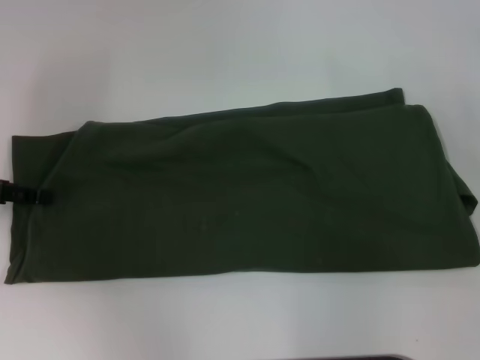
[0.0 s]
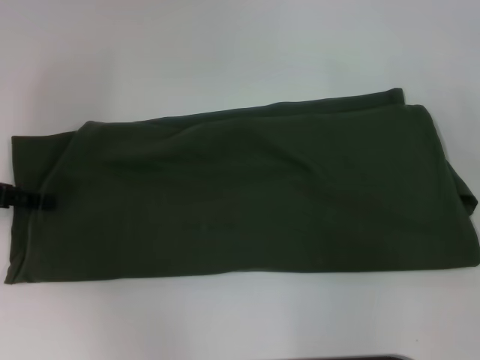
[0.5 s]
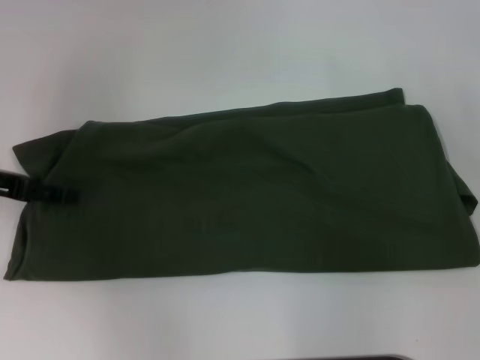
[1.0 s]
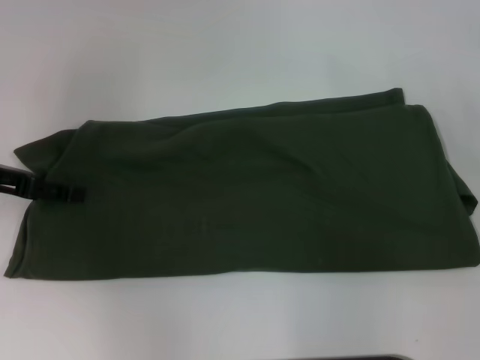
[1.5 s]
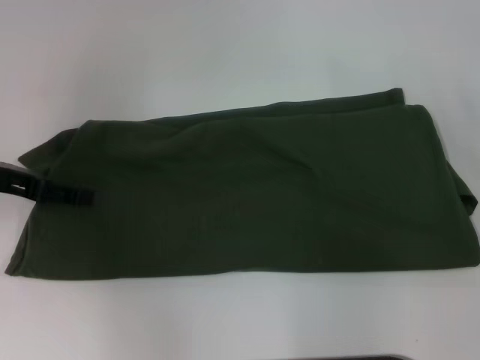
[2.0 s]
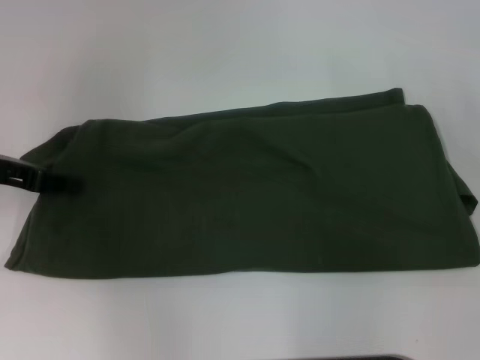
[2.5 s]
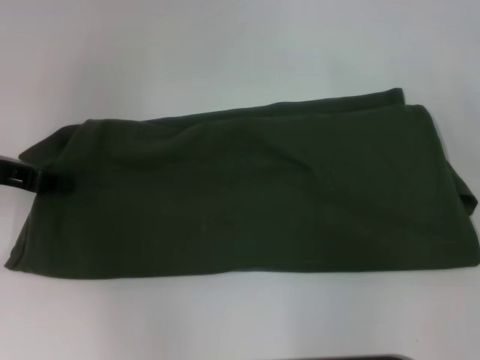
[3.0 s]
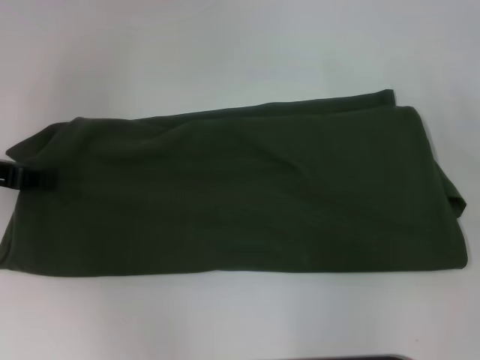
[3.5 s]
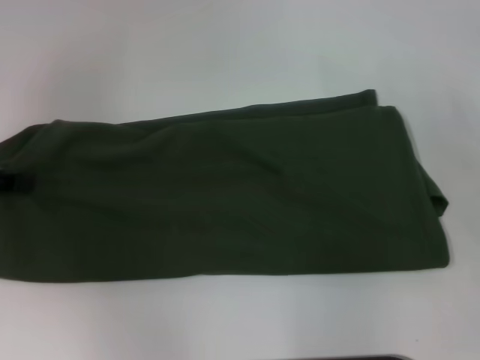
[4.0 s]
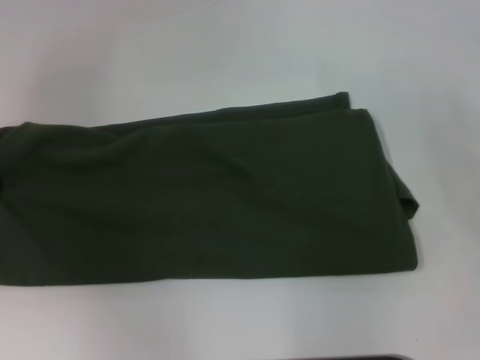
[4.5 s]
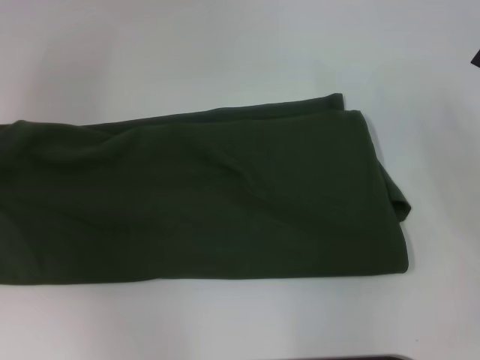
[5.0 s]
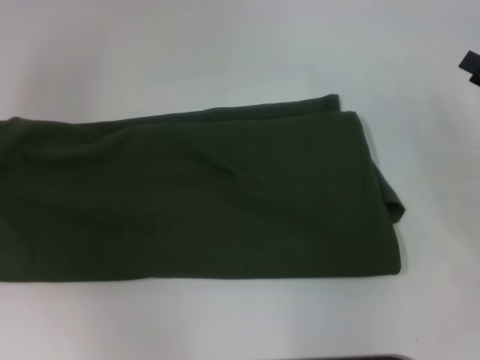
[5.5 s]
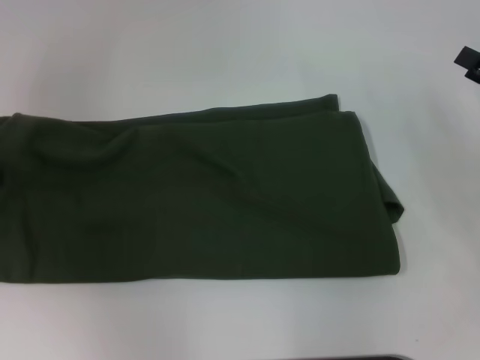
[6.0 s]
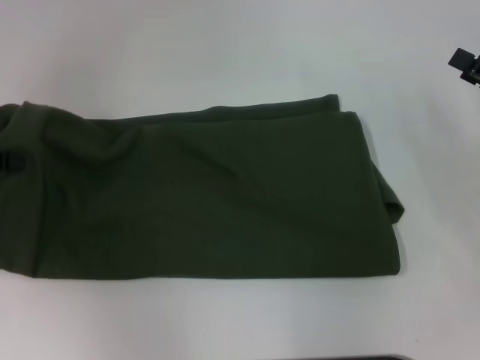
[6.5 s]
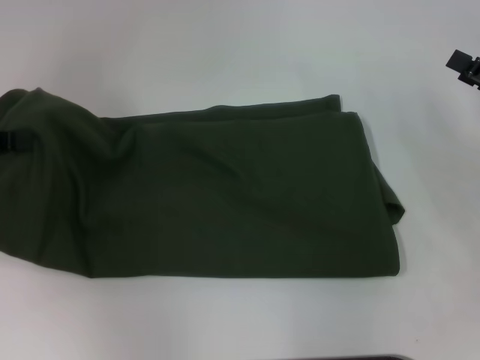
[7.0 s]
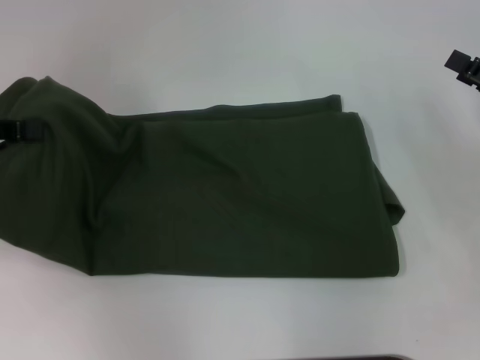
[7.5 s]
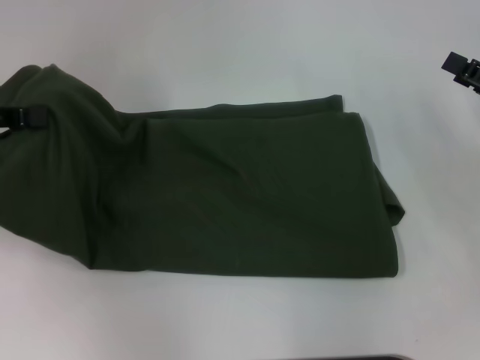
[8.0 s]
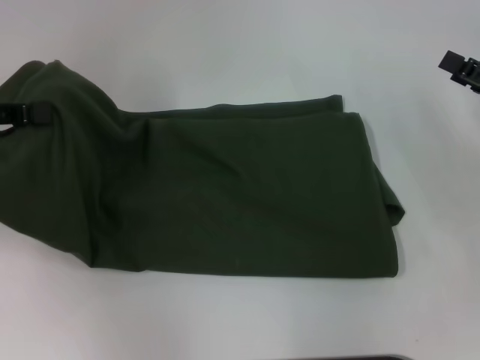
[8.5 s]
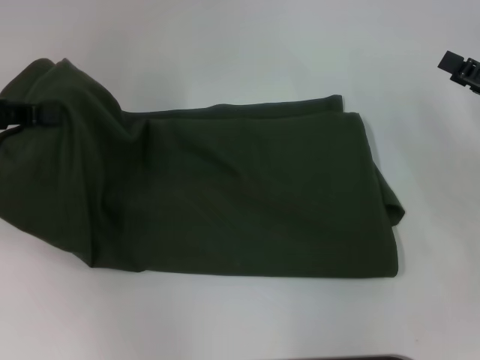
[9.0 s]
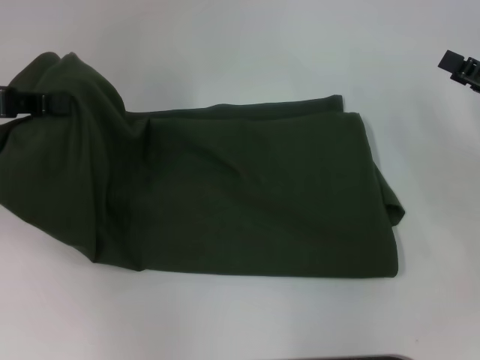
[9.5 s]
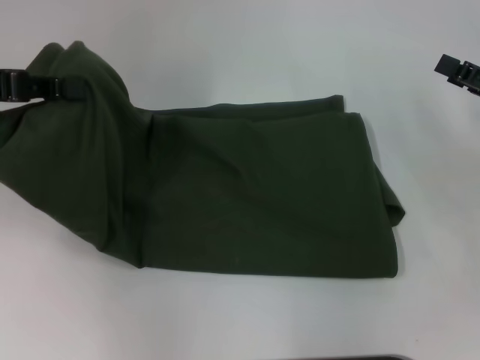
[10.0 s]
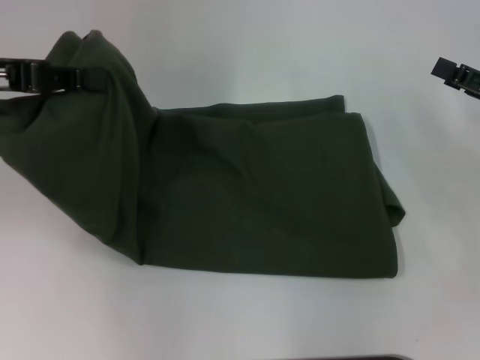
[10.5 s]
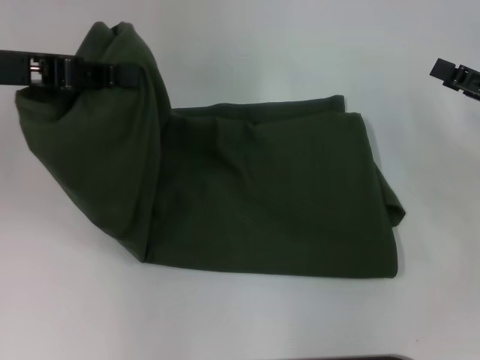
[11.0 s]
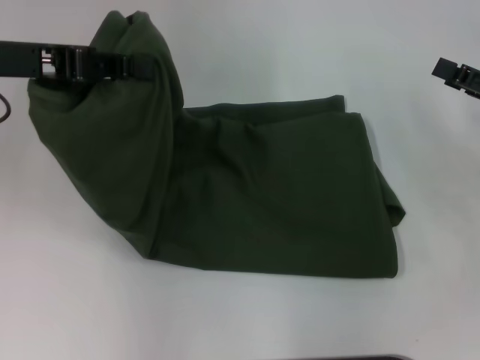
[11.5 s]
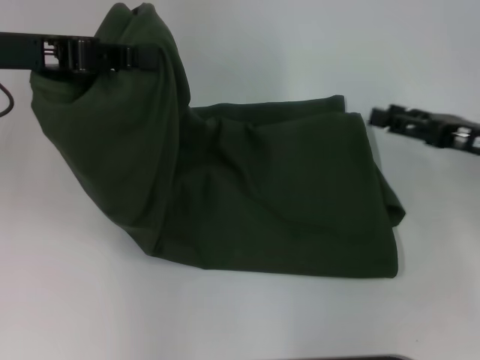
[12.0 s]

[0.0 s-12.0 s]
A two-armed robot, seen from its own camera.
0.0 to 2.0 s: The grippers stay close to where they were, moving slightly.
2.0 to 4.0 s: The left gripper closes its fingers.
4.0 to 8.0 s: The grippers stay close to where they were, moving slightly.
8.0 to 10.0 s: The grippers make only small movements.
10.0 to 12.0 s: The left gripper moves to the right, some 5 cm.

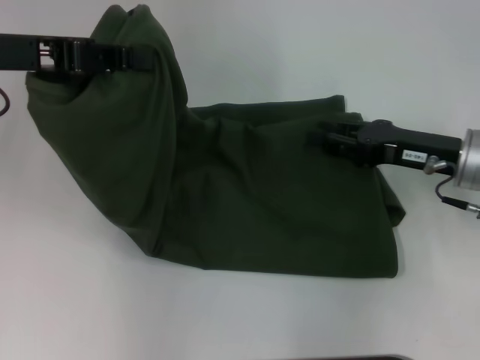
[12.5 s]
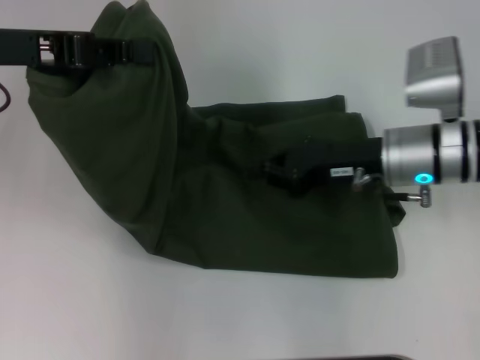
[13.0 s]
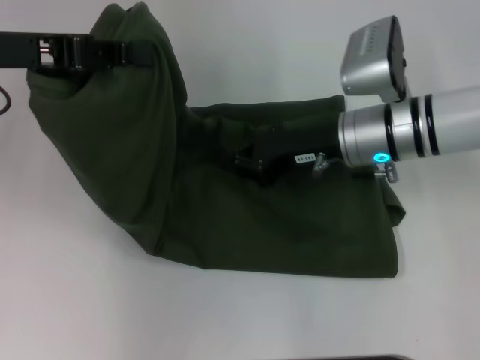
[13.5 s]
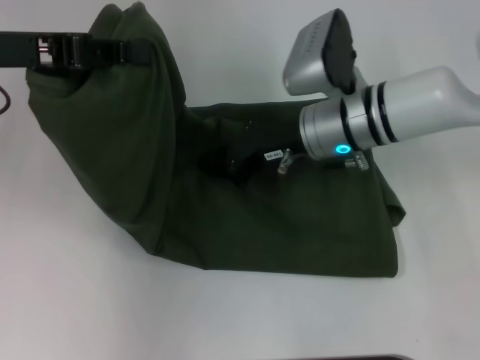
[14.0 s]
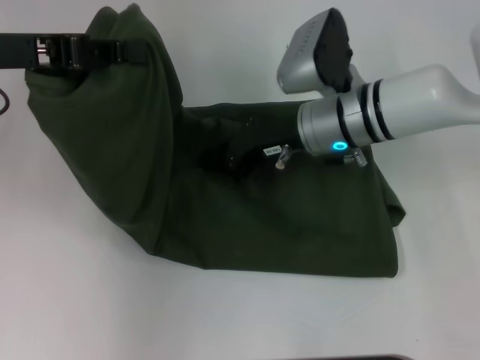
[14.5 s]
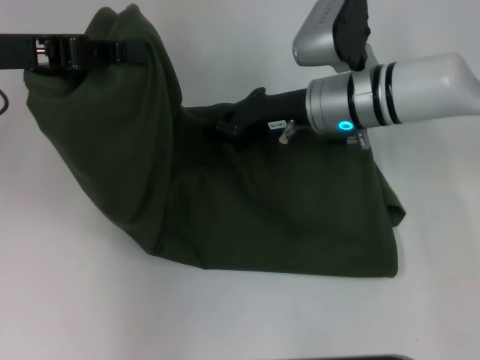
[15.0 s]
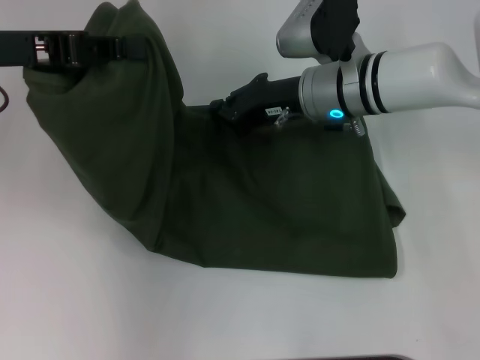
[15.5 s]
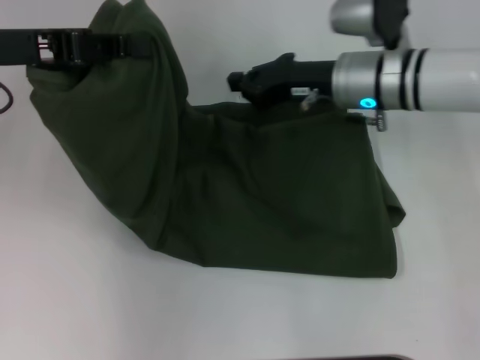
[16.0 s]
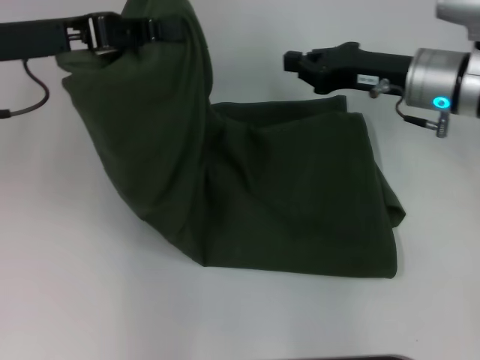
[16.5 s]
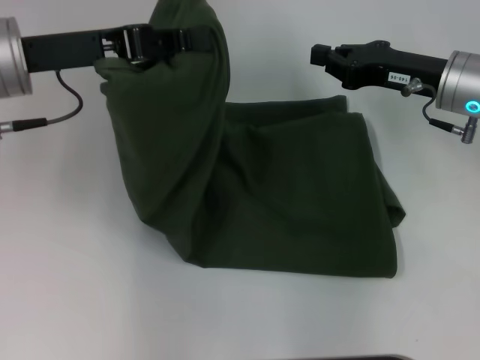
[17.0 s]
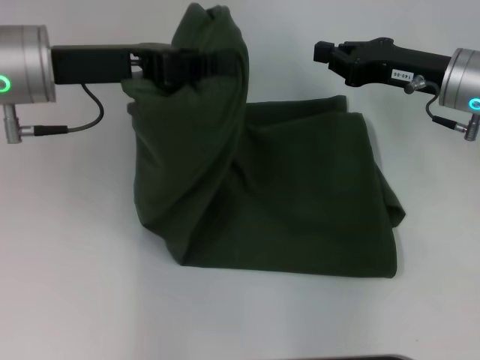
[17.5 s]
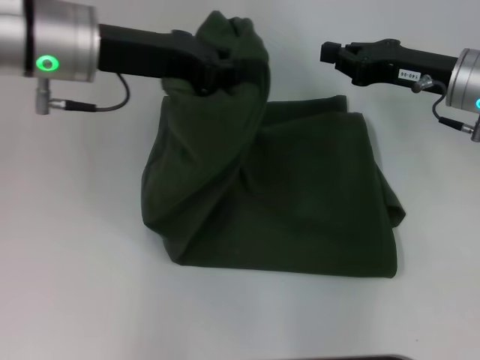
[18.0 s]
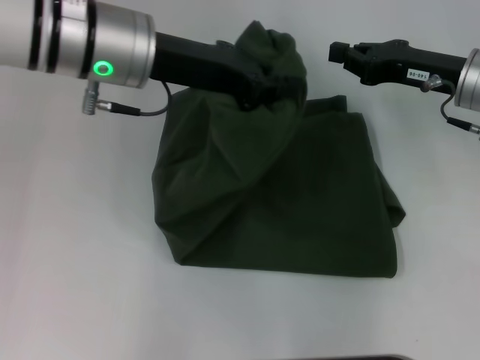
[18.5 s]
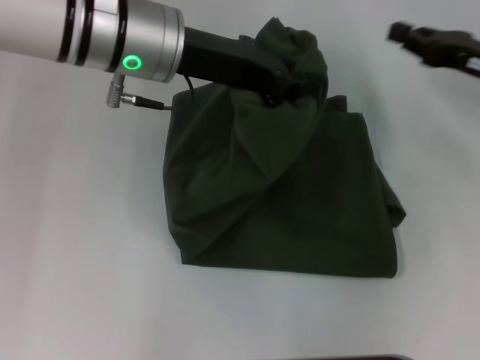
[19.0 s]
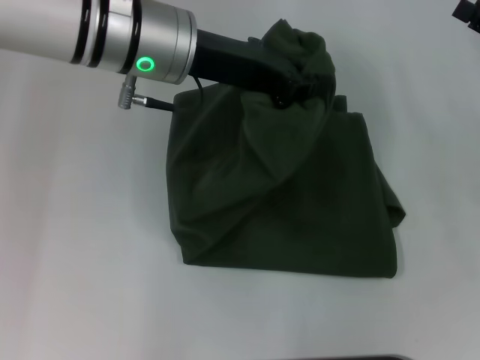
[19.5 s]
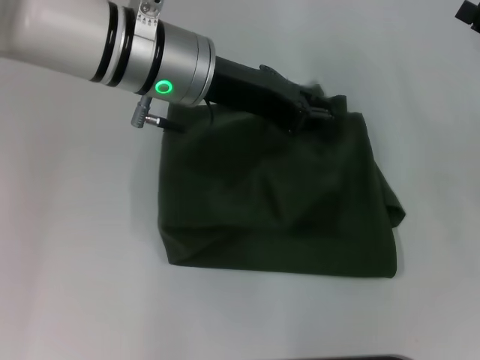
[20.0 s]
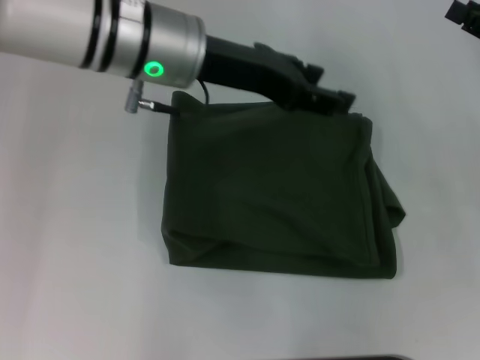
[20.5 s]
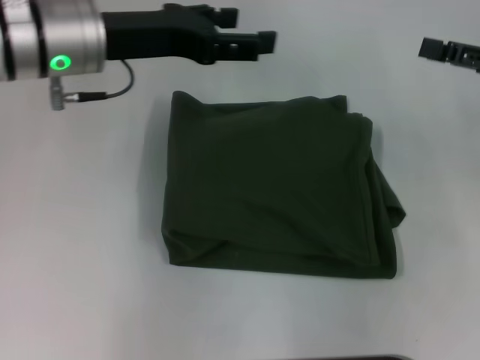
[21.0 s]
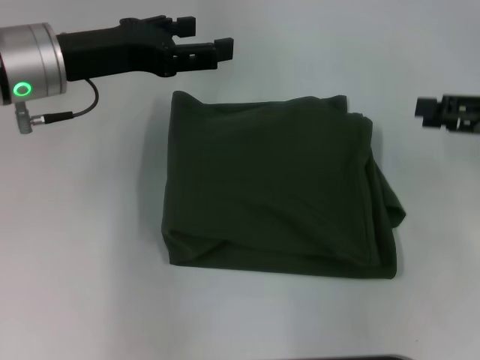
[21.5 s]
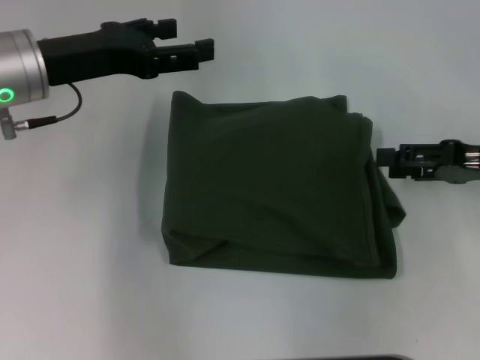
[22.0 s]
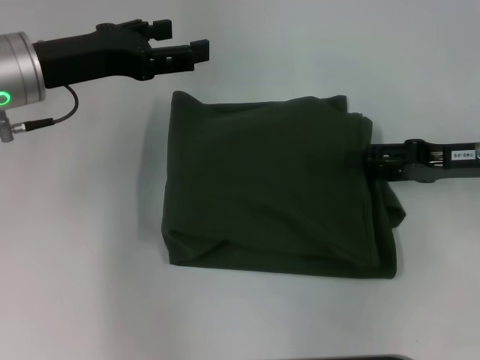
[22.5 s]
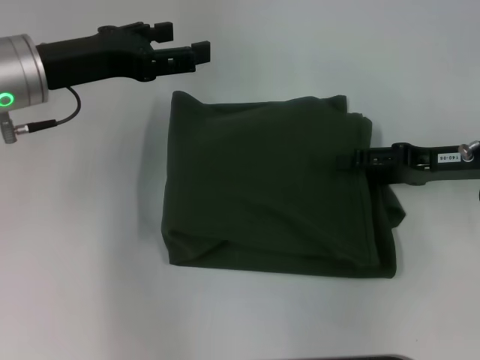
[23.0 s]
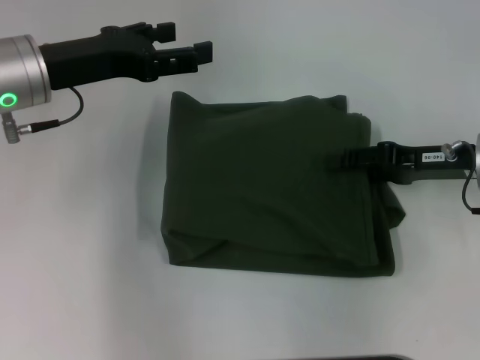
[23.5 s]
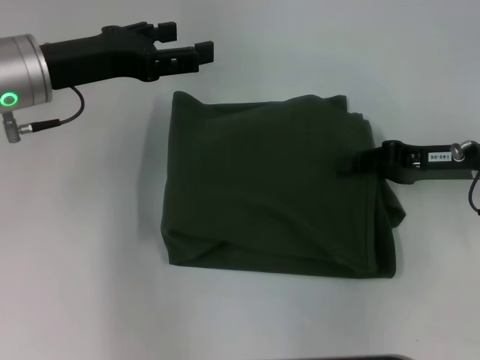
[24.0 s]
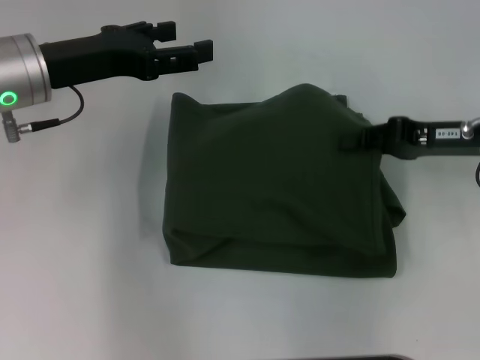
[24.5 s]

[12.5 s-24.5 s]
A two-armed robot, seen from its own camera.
Step, 12.5 to 20.0 s: Fold the clothes with your left hand.
12.5 to 14.5 s: The right gripper moves to the left and forward, about 15 cm, and closes.
14.5 to 16.5 s: The right gripper travels to the right by some 10 cm.
16.5 to 18.5 s: The left gripper travels to the right by roughly 10 cm.
18.5 to 20.5 s: The left gripper opens. The right gripper travels to the right by some 10 cm, and opens its fingers.
20.5 to 22.5 s: The right gripper is displaced to the left by some 5 cm, while the left gripper moves to the left, roughly 10 cm, and opens up.
22.5 to 24.5 s: The right gripper closes.

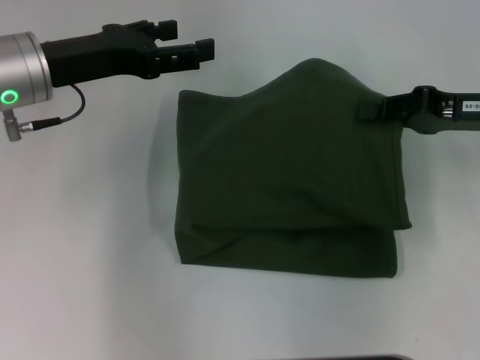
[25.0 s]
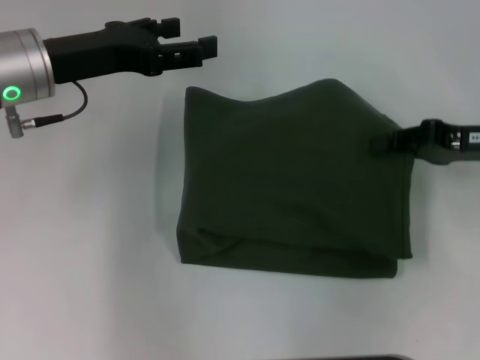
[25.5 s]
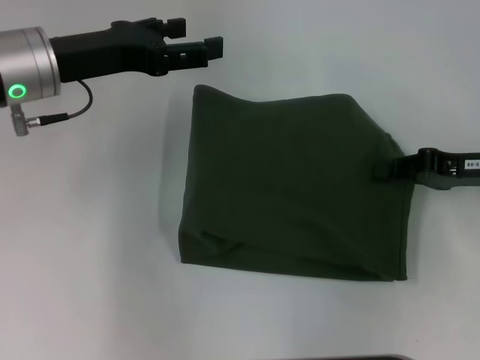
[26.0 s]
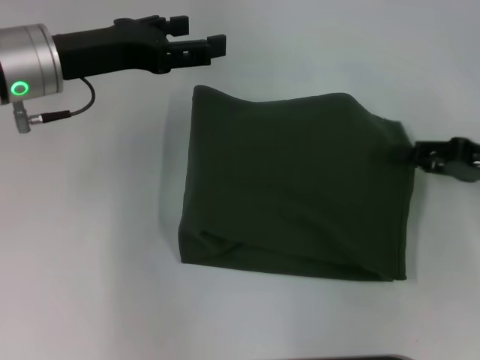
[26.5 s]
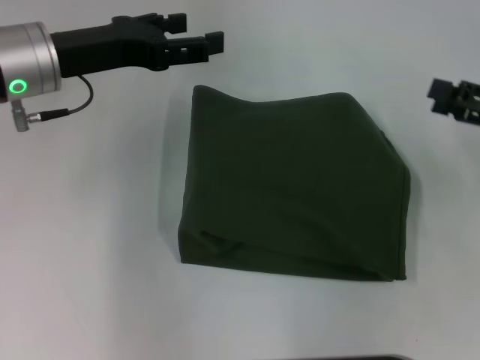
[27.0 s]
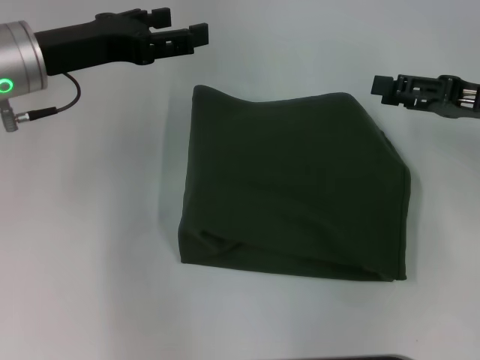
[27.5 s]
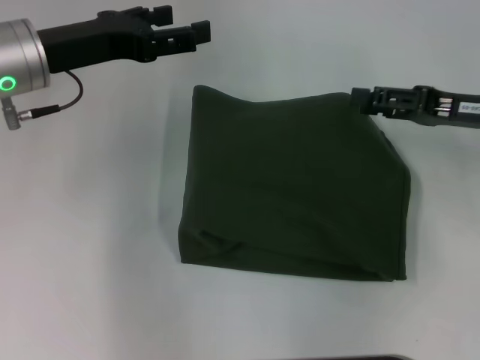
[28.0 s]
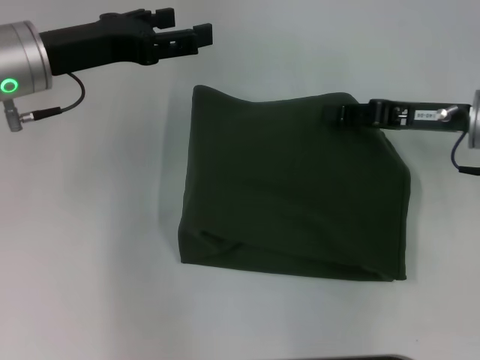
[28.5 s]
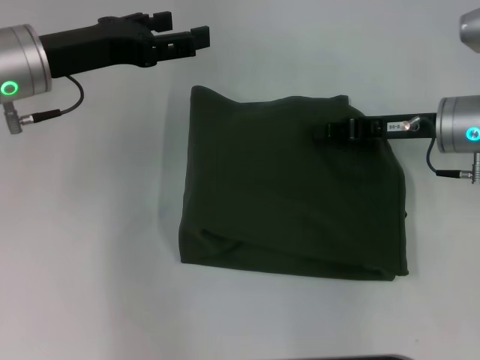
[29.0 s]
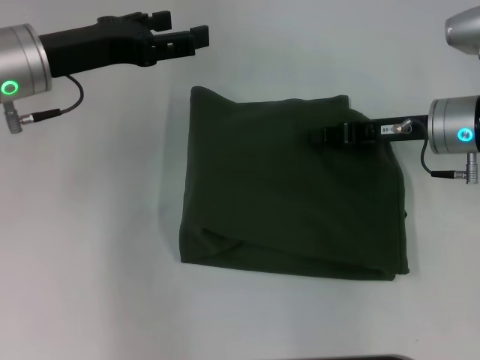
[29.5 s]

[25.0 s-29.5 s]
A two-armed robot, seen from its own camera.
25.0 to 27.0 s: The right gripper heads to the right, covering some 5 cm, and opens up.
27.0 to 29.5 s: The right gripper goes approximately 15 cm to the left and forward, and closes.
